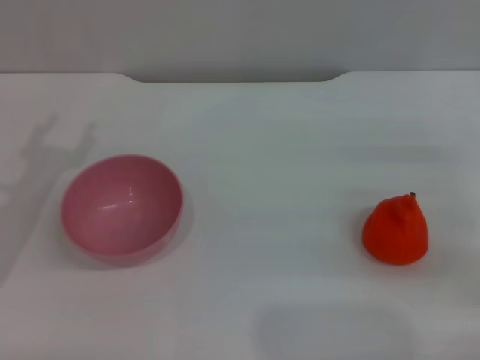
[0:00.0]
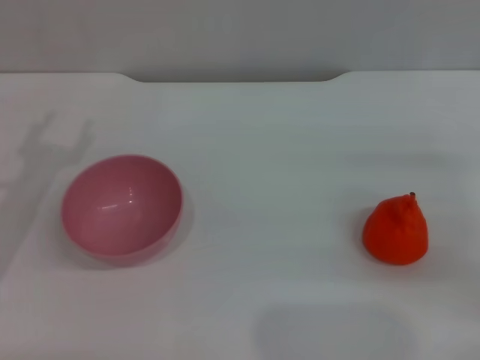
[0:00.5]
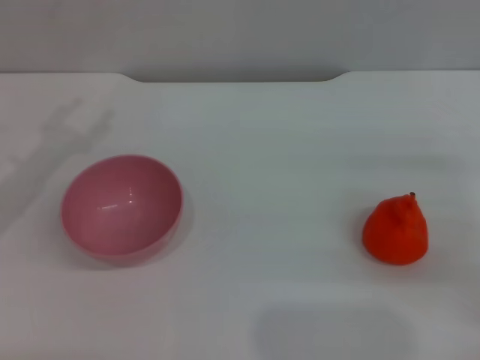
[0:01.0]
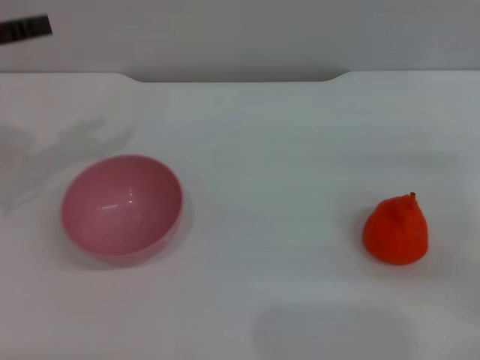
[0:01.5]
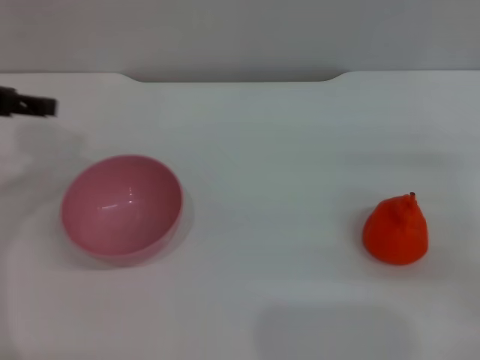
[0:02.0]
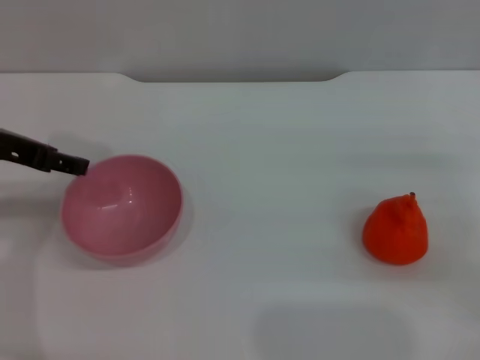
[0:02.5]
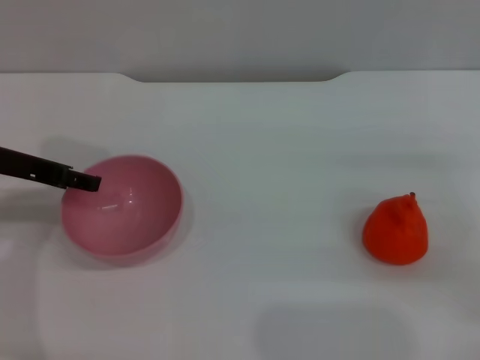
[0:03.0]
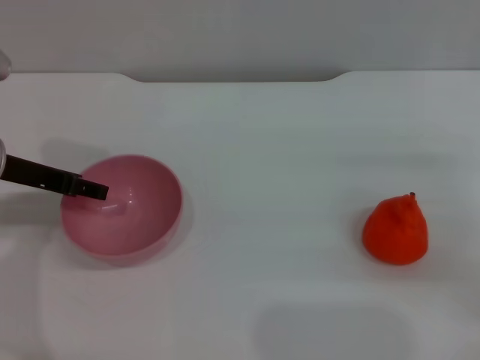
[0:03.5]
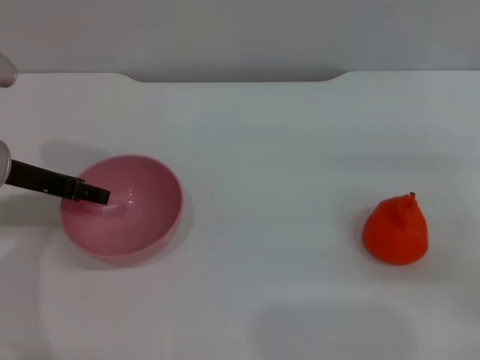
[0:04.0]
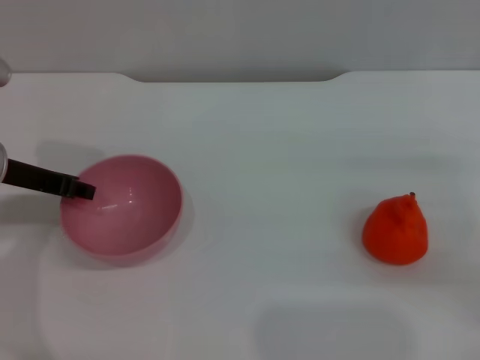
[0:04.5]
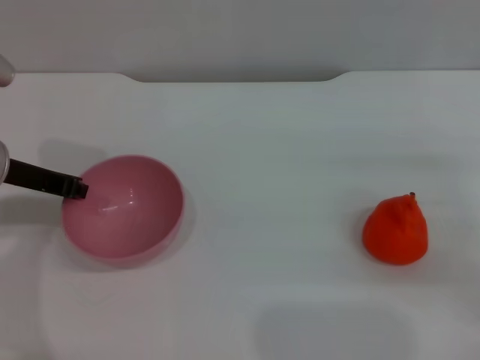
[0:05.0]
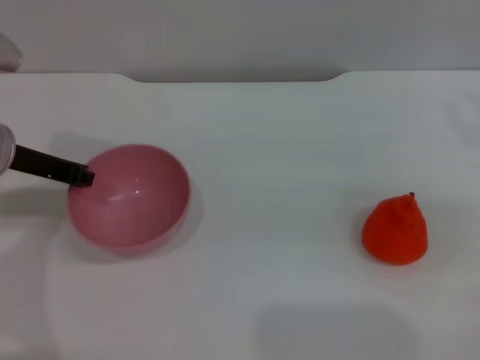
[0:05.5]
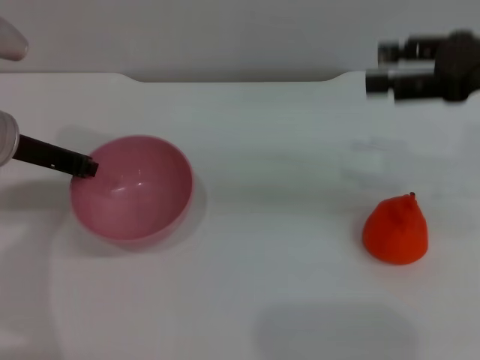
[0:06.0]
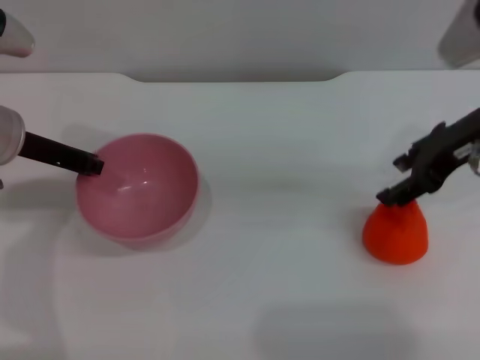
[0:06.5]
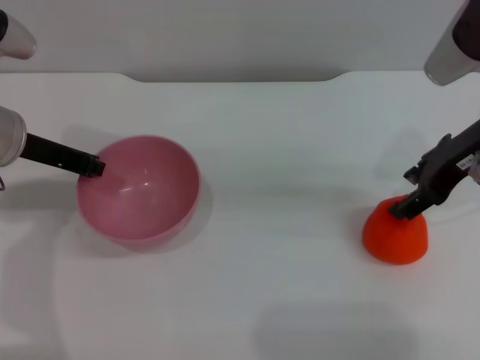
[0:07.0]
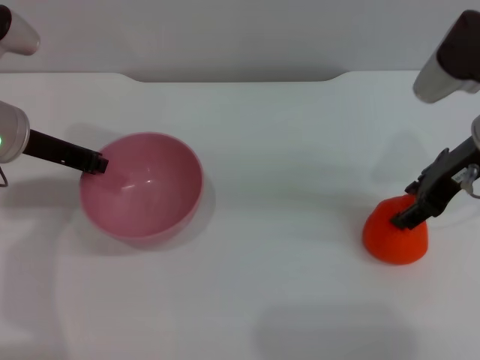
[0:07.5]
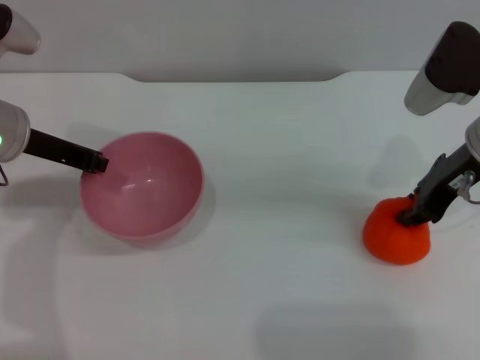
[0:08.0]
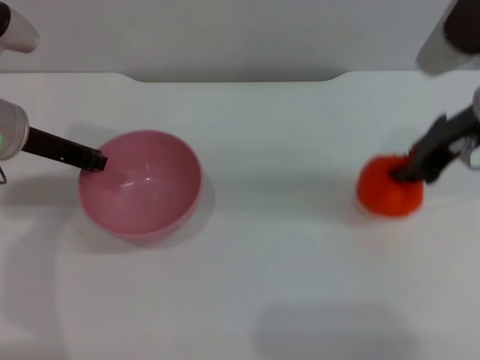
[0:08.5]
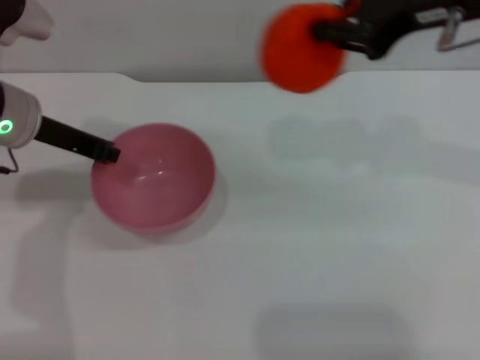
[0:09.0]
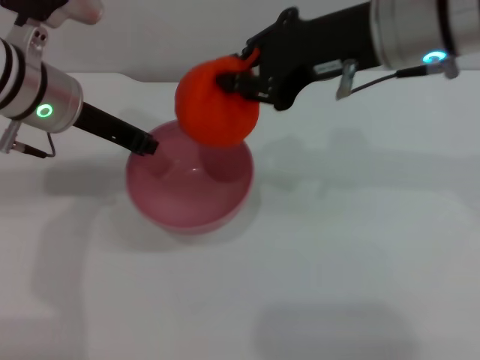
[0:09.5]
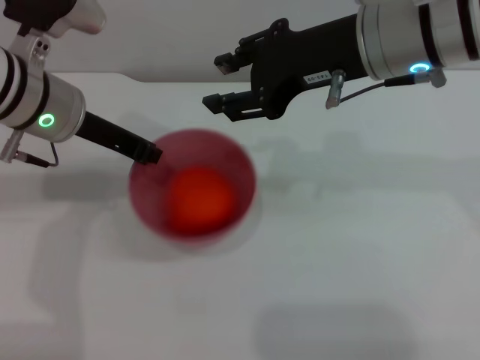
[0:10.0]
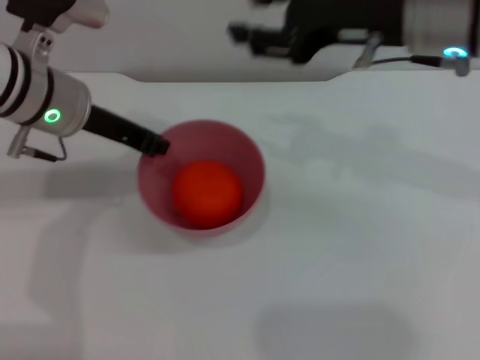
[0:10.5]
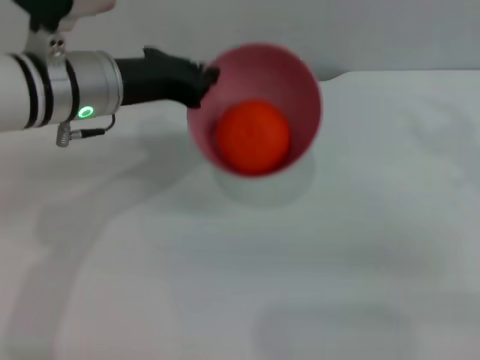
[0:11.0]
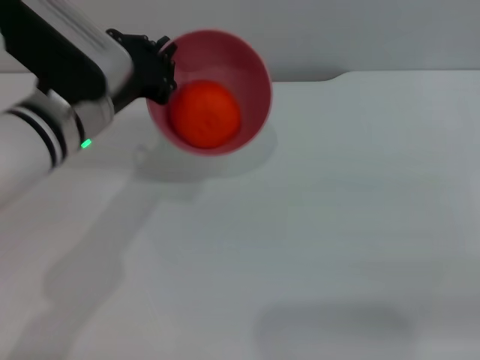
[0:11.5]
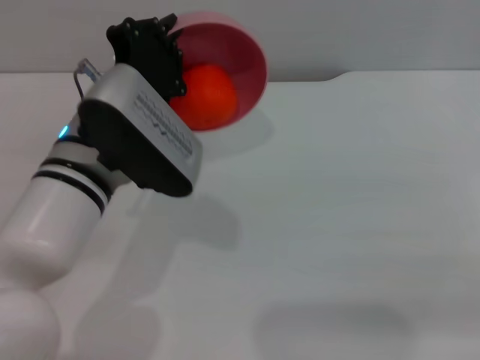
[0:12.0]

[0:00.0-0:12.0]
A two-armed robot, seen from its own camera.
Task of the whole recording: put the orange into the pink bowl and pour it out repeatedly.
Step, 0:00.0 to 0:06.0: Pick up the bowl with the left gripper.
Step, 0:06.5 to 0:08.5: Pick up the orange with the right gripper.
Step, 0:09.0 to 0:10.0: Place the orange into the bowl.
0:00.0 to 0:02.0: The left gripper heads upward, covering roughly 15 cm.
0:02.0 to 0:04.0: The left gripper shifts approximately 10 cm downward.
0:04.0 to 0:06.0: The right gripper heads upward and forward, covering about 15 cm. Meanwhile the left gripper closes up.
0:06.0 to 0:08.0: The right gripper travels to the left and downward by about 10 cm, and closes.
0:08.0 to 0:10.0: The left gripper heads to the right, covering roughly 5 cm; the right gripper is displaced to the left and upward by approximately 15 cm, and closes, then reopens.
0:10.0 to 0:12.0: The right gripper goes about 25 cm to the right, backward and downward; the left gripper travels backward and to the right by roughly 10 cm.

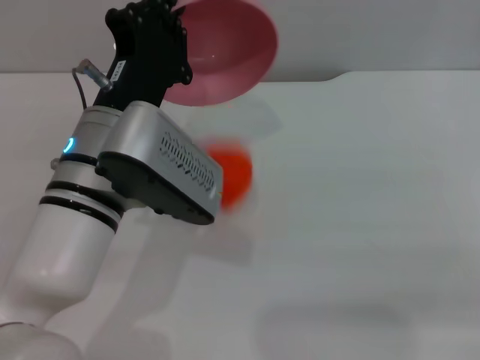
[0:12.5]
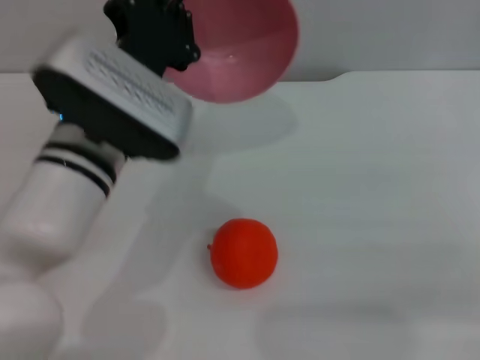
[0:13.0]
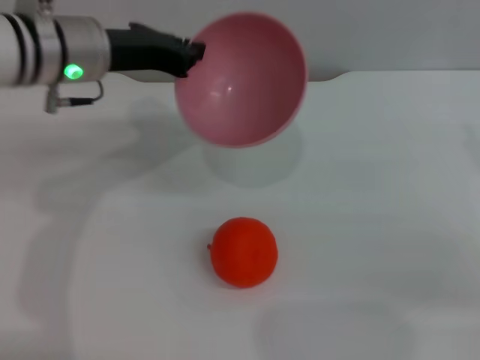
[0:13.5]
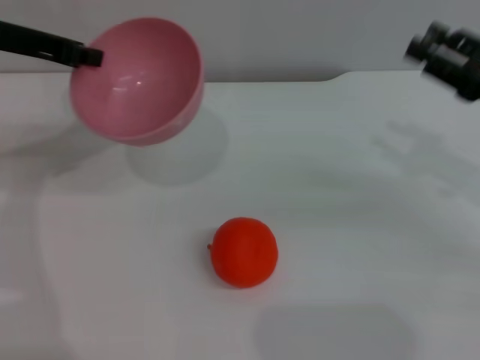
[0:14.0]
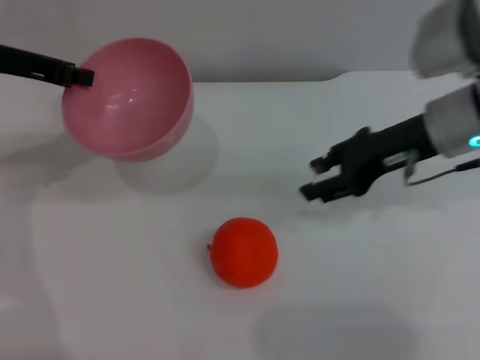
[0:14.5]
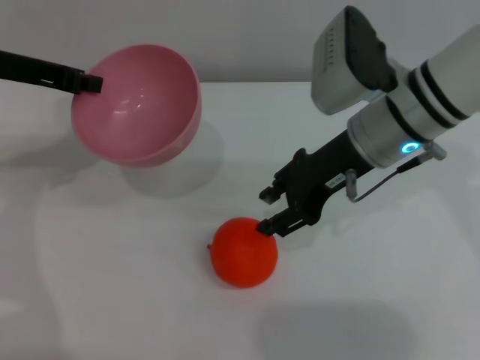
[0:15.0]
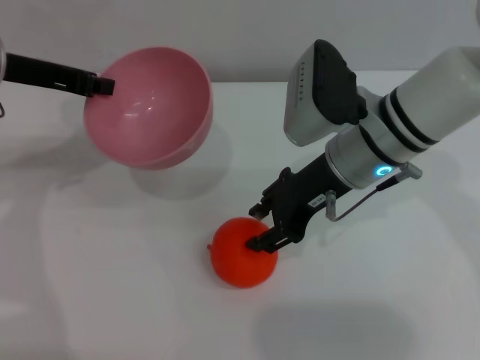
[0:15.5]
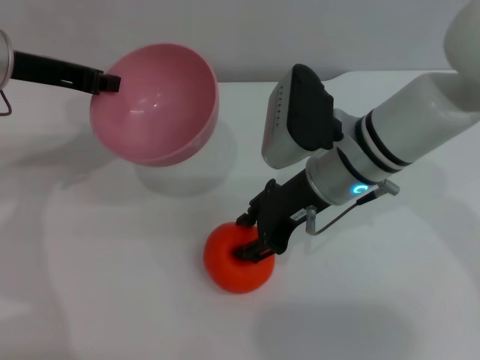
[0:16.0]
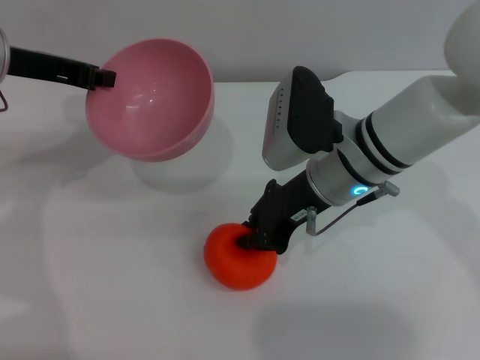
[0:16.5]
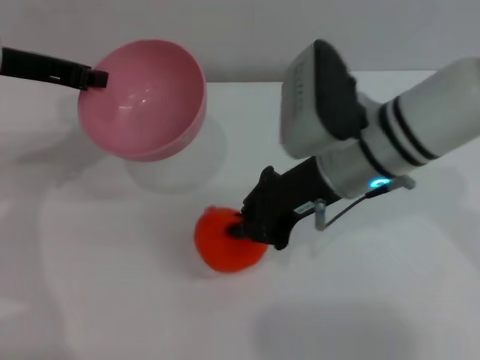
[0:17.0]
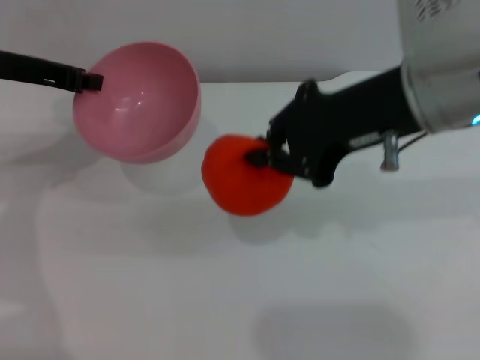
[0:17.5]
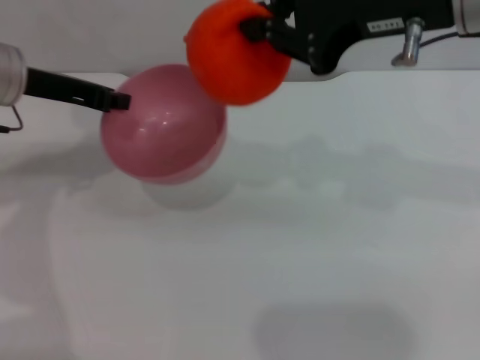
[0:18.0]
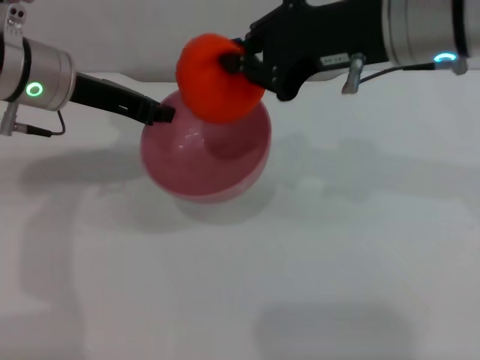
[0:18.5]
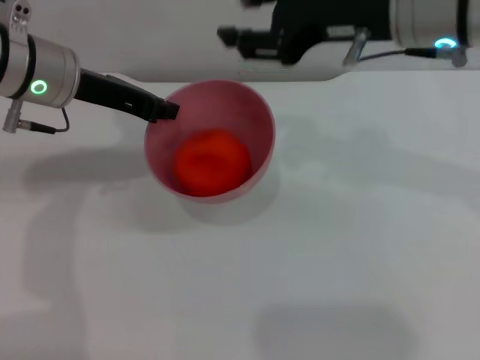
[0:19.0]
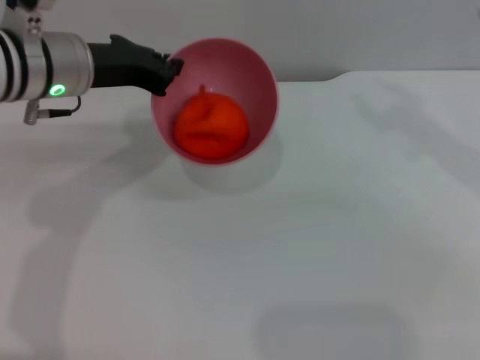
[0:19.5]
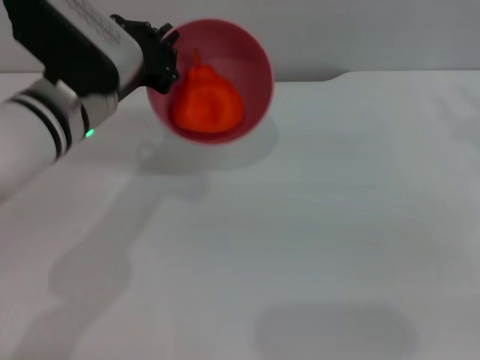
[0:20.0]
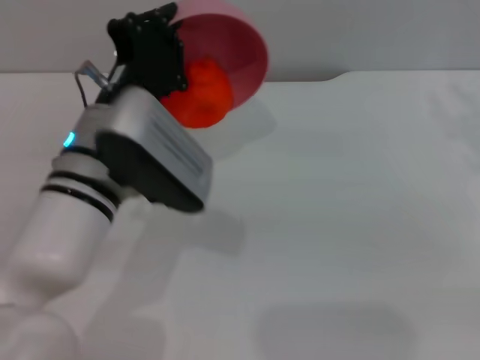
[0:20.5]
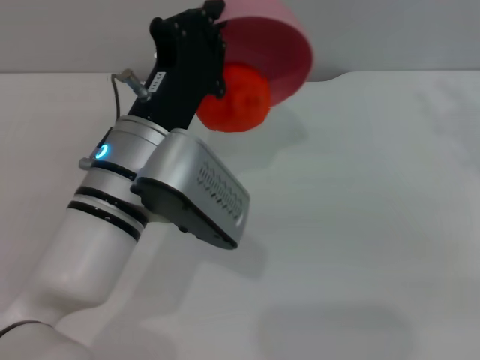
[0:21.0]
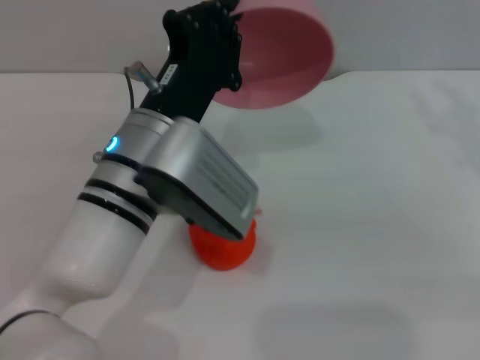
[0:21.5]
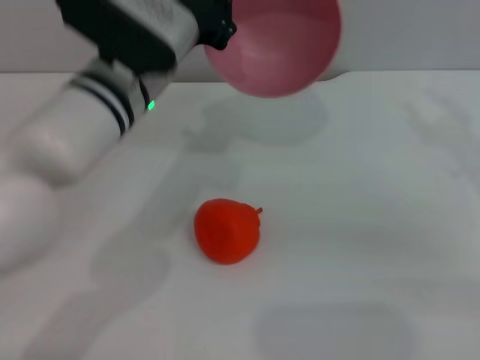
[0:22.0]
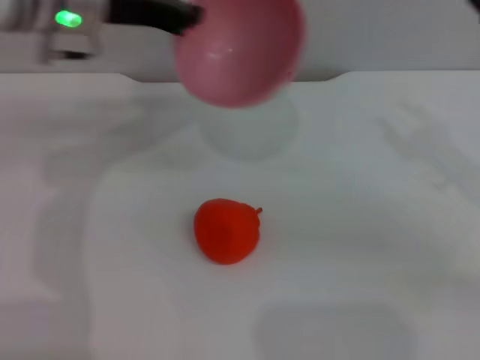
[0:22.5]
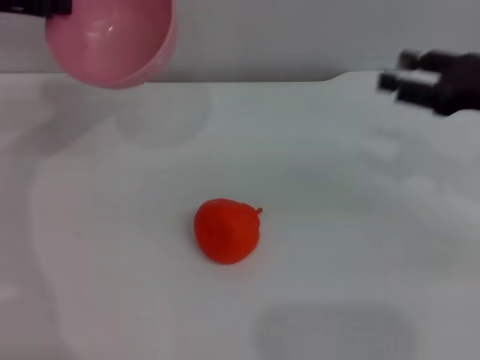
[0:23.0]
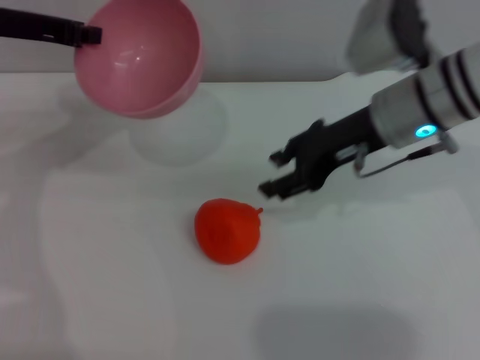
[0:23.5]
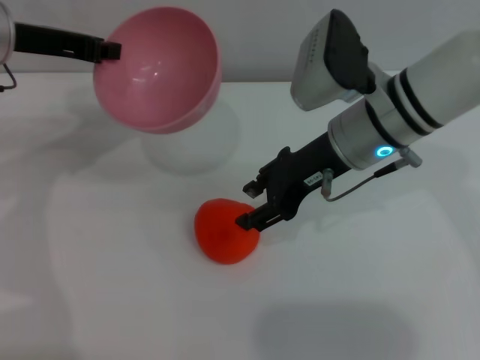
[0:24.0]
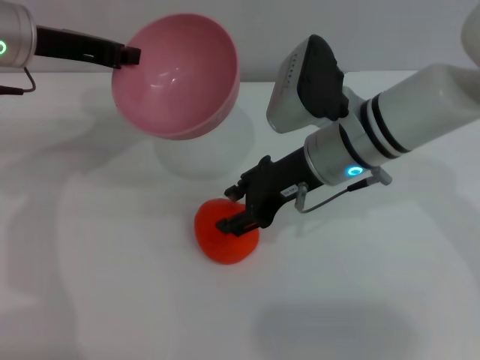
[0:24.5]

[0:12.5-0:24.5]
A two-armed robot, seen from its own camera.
Task of the whole recording: put the orange into the pink bowl and pour it out repeatedly.
Step, 0:13.0 to 0:17.5: Pick up the orange with the right gripper.
Step, 0:18.0 to 0:18.5: Place the orange into the bowl.
Step, 0:19.0 to 0:21.5: Pour the orange out of the bowl.
0:12.5 to 0:14.5: The left gripper shifts some 20 cm to the left, forward and upward, while the right gripper is displaced to the left and forward by some 20 cm.
0:14.5 to 0:16.5: The right gripper travels to the left by about 10 cm, and closes its fingers.
0:16.5 to 0:18.5: The left gripper goes roughly 5 cm to the right, while the right gripper moves upward, some 15 cm.
0:18.5 to 0:20.5: The right gripper moves to the right, some 20 cm, and opens up; the left gripper shifts about 15 cm backward, to the right and downward.
0:20.5 to 0:22.5: The left gripper goes approximately 20 cm forward, upward and to the left.
0:22.5 to 0:24.5: The right gripper heads to the left, covering approximately 20 cm.

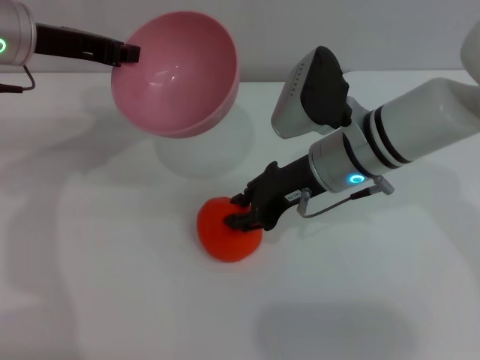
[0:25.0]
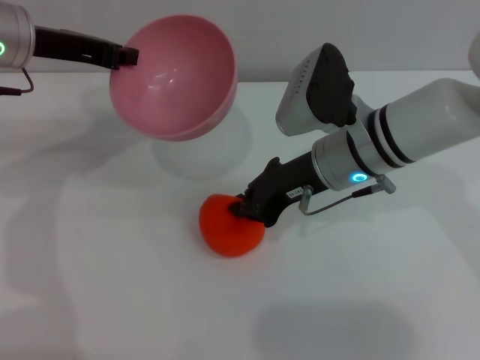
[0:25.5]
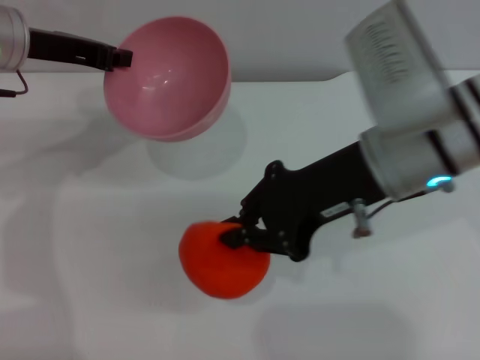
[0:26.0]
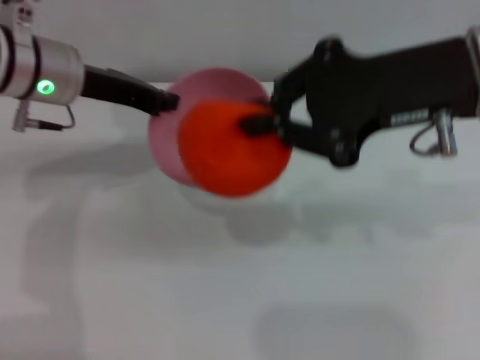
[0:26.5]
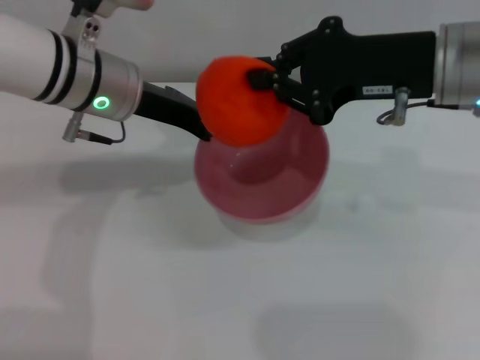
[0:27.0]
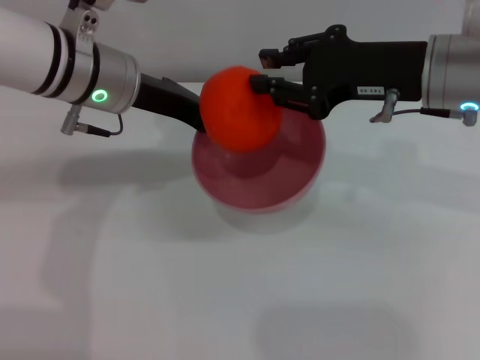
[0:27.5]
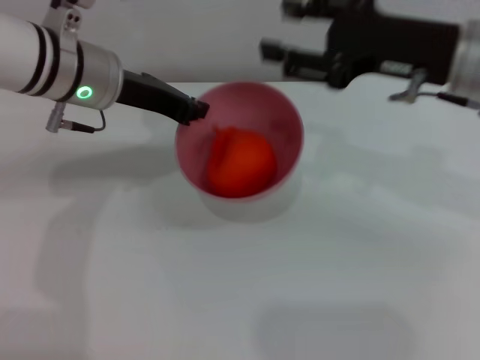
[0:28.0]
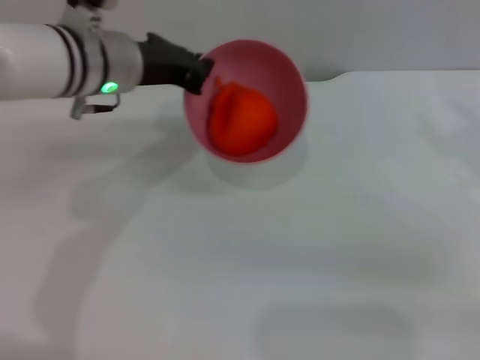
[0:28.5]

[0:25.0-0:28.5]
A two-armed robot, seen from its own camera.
Task of the whole recording: put the orange into the pink bowl and pour it out repeatedly.
Step, 0:26.5 to 0:27.5: Place the orange into the bowl.
0:25.0 to 0:27.0: The right gripper moves upward and to the right, some 15 cm, and closes its fingers. Meanwhile the left gripper shifts roughly 10 cm to the right.
0:27.0 to 0:28.5: The right gripper heads to the right and downward, covering about 15 cm, and opens its fingers.
